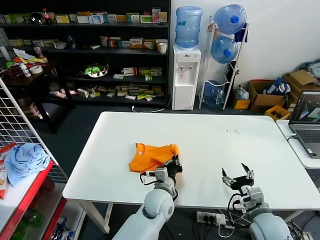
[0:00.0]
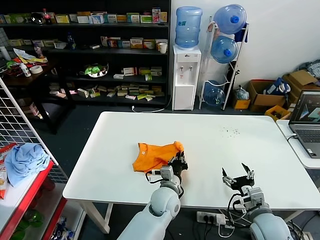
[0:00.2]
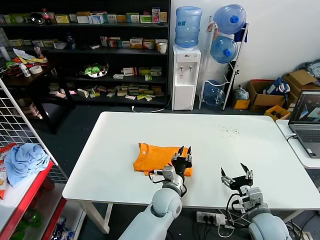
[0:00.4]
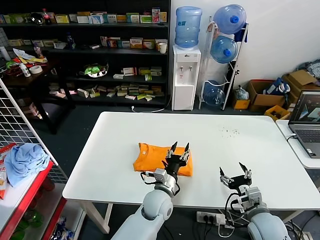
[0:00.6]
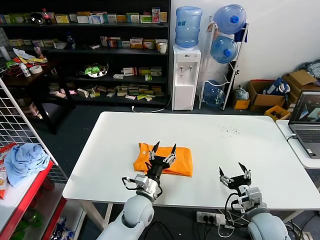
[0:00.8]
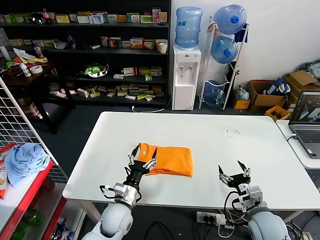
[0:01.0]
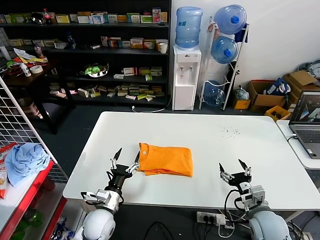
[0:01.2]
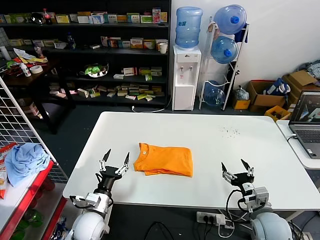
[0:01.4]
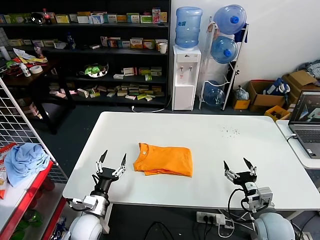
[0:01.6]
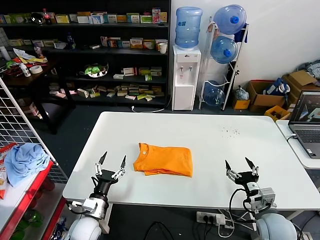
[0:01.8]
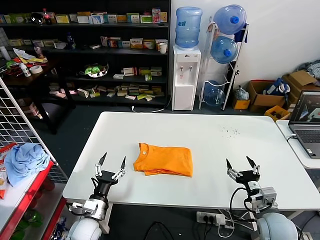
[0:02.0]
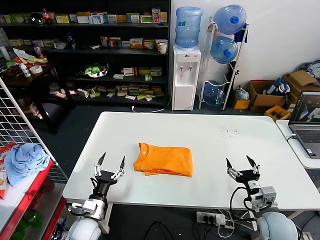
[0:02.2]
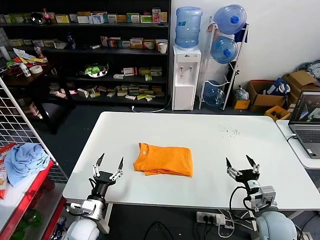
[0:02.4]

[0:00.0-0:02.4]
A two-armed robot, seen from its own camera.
Task of the whole recording: fold and organize the clothes.
0:00.0 to 0:01.2: The left gripper travels to the left by roughly 15 cm, and opens its fingers.
0:01.2 to 0:02.4: The left gripper heads to the left, covering about 10 cm.

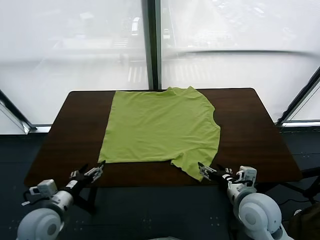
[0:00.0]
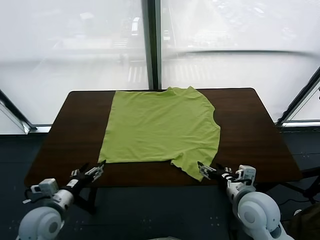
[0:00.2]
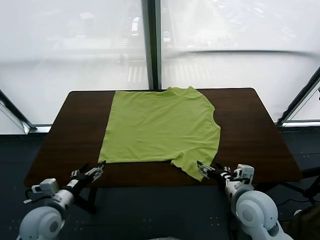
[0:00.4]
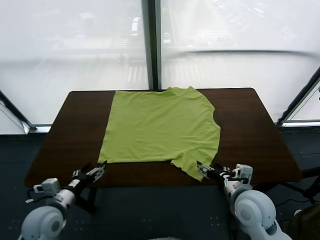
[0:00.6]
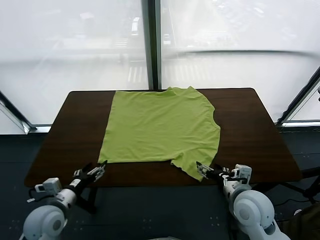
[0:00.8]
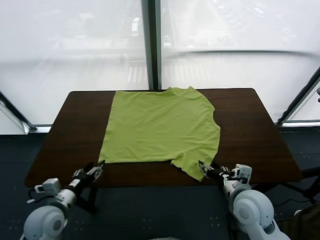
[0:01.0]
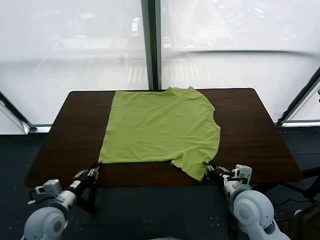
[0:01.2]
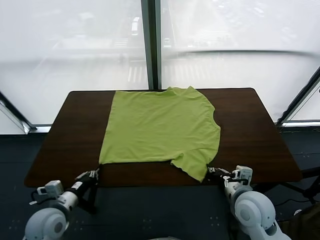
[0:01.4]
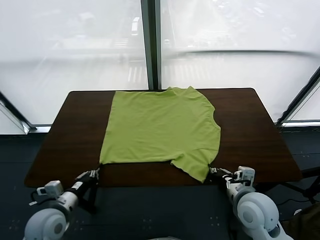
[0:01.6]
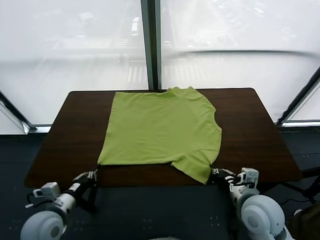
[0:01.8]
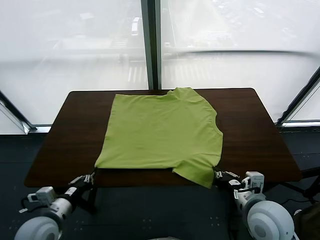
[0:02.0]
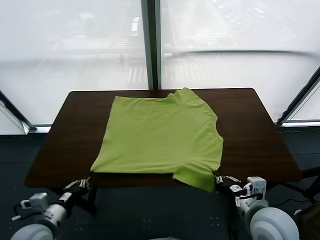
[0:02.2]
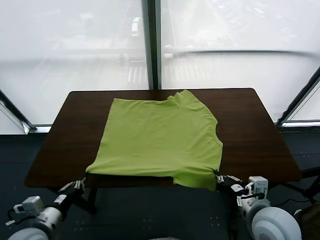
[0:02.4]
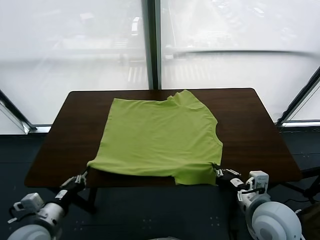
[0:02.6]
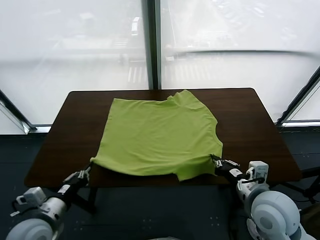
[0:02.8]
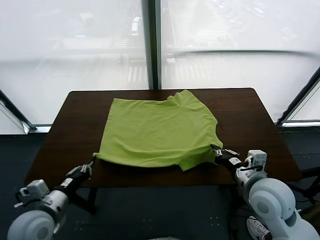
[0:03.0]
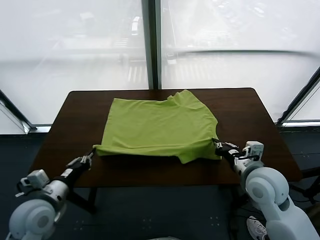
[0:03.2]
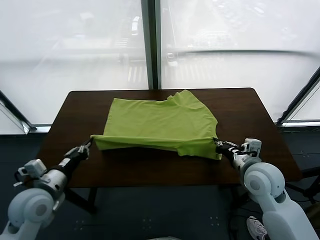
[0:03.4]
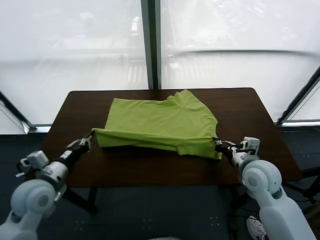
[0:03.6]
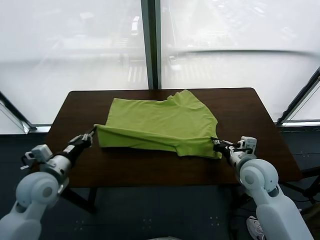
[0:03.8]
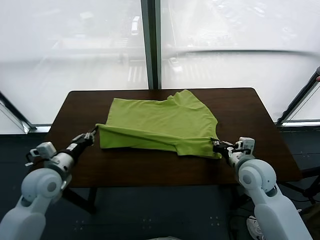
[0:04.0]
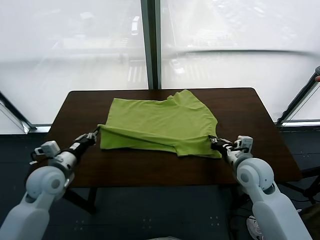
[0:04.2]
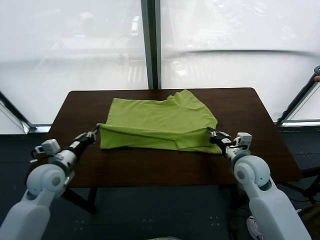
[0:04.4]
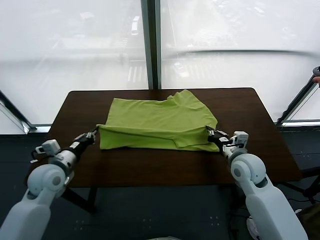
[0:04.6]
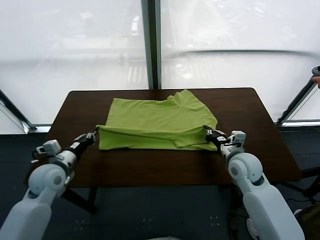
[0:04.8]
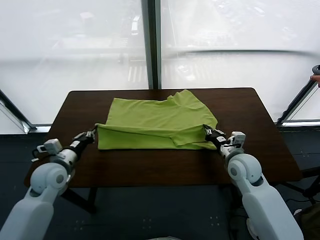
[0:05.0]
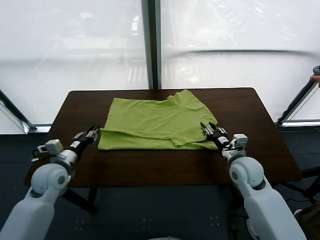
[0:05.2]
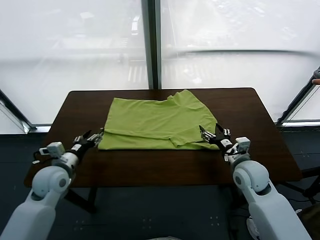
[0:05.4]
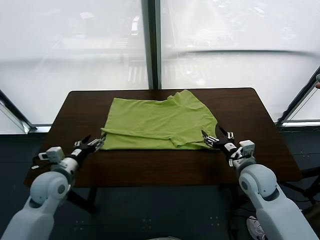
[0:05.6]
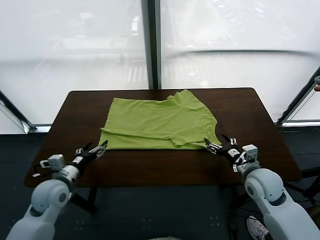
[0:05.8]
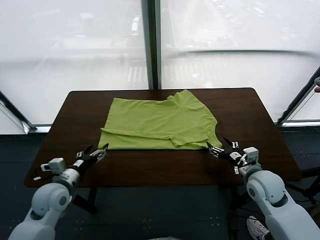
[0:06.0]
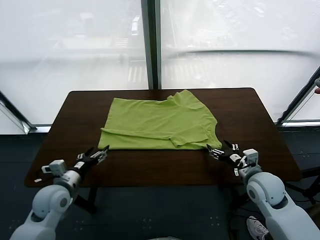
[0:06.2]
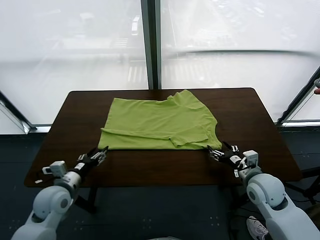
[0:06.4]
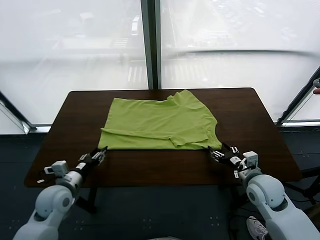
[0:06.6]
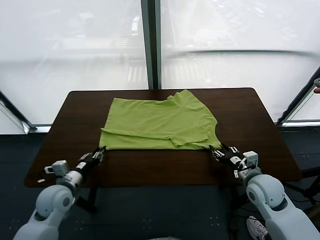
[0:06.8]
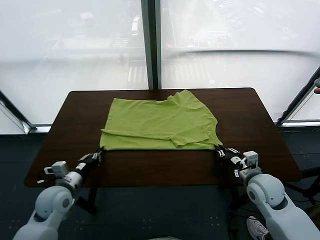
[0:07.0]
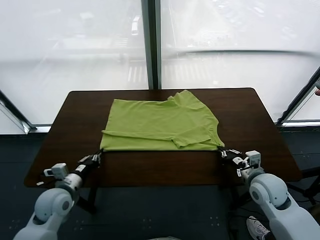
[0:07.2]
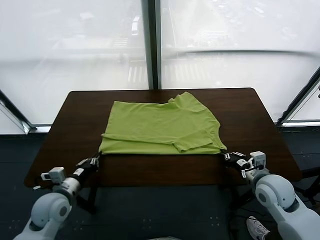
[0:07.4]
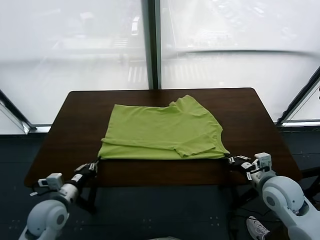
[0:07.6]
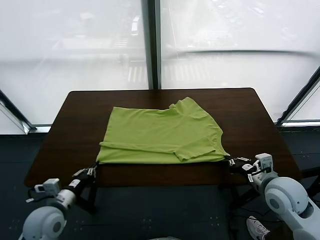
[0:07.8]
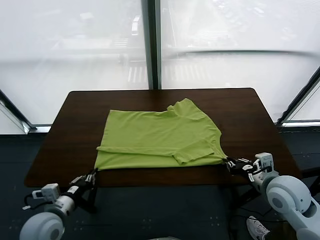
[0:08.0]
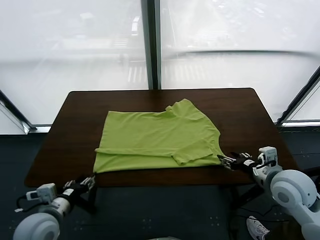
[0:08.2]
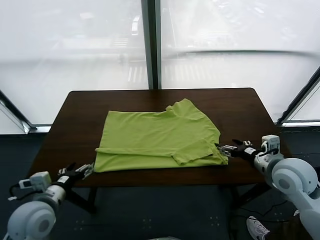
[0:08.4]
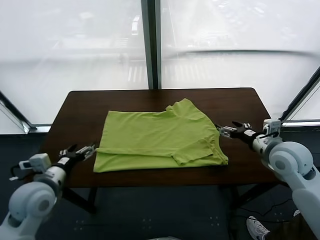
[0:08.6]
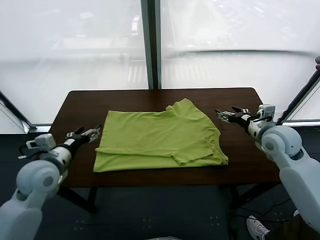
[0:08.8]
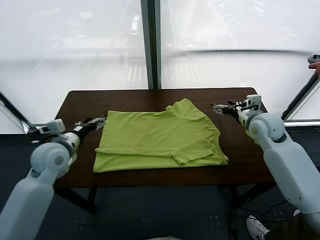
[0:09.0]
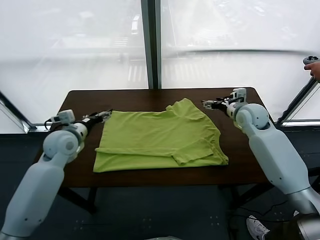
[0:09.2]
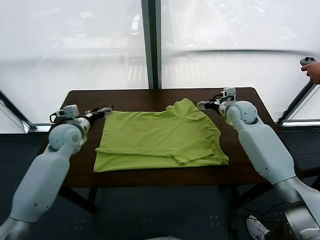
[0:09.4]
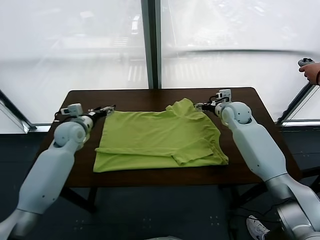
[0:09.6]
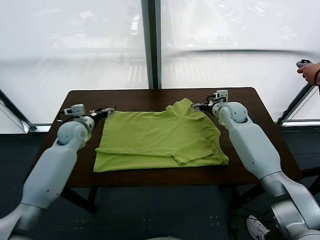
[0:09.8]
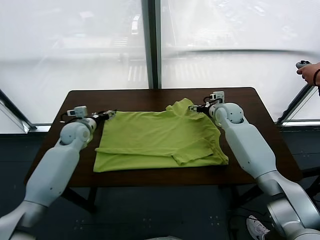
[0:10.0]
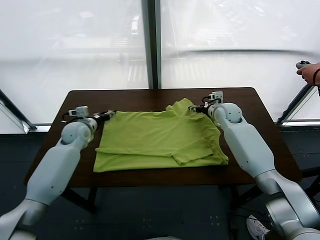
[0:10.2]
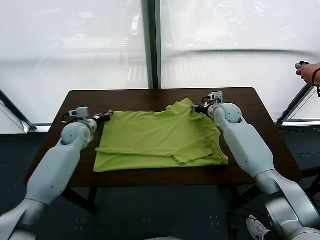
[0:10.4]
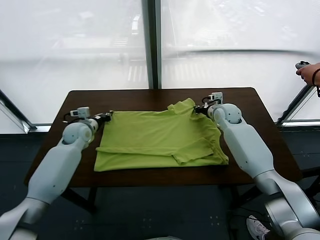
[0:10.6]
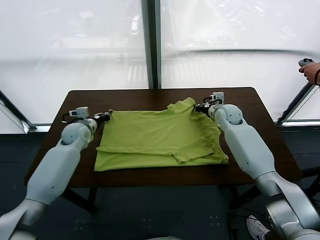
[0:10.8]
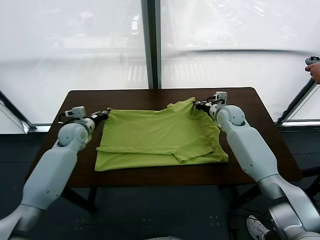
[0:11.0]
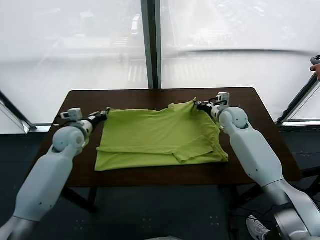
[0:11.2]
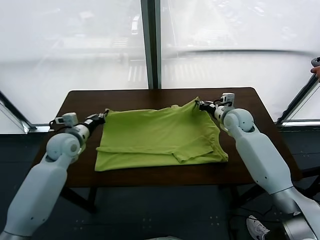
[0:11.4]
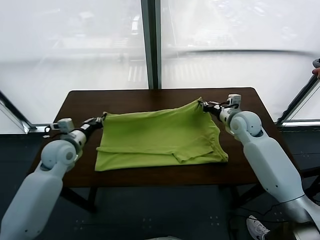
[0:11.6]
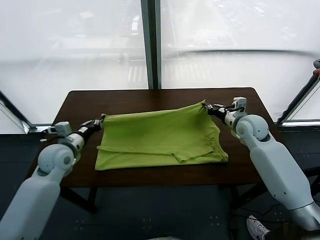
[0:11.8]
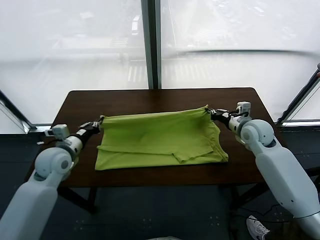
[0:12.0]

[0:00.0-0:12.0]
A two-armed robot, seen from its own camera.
Task of the whole recording: fold and organize the clothes.
Step, 0:00.0 to 0:01.4: use both grippers simultaneously to clamp the lower edge of the clothing fabric.
Step, 0:01.6 to 0:05.2: use both grippers to drag the lower edge of the fabric forward and fold it over the upper edge.
Step, 0:05.6 to 0:08.0: Drag the clothes downward with both gripper.
Step, 0:08.4 to 0:10.6: use both grippers simultaneously to clamp the upper edge of the clothing fabric.
0:01.6 to 0:03.0: The right gripper heads forward, covering about 10 cm.
0:03.0 to 0:04.4: The right gripper travels downward and forward by roughly 10 cm. The left gripper goes approximately 10 cm forward.
0:04.4 to 0:06.0: Both grippers travel together backward, some 5 cm. The left gripper opens its fingers, while the right gripper opens.
0:06.0 to 0:07.6: The left gripper shifts roughly 5 cm backward, and closes its fingers. The right gripper heads upward, covering roughly 10 cm, and closes.
0:07.6 to 0:09.0: Both grippers move forward, about 25 cm. The left gripper opens up. The right gripper opens up.
0:09.0 to 0:10.4: The right gripper closes up. Meanwhile the left gripper travels downward and forward by some 10 cm, and closes.
0:10.4 to 0:12.0: Both grippers travel together backward, roughly 15 cm.

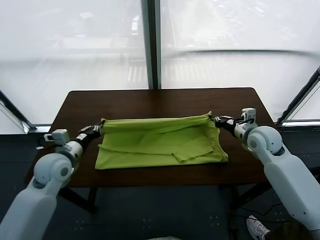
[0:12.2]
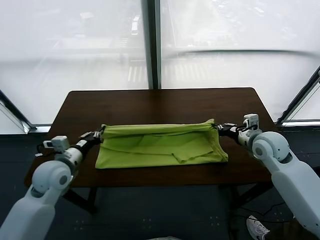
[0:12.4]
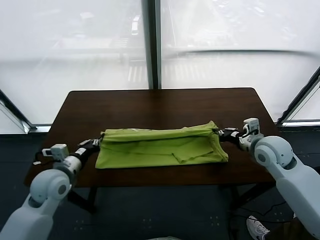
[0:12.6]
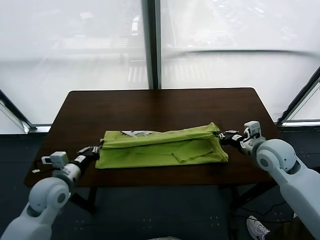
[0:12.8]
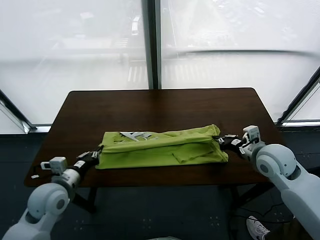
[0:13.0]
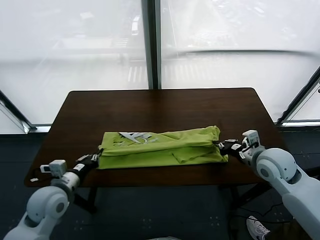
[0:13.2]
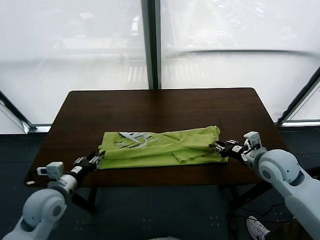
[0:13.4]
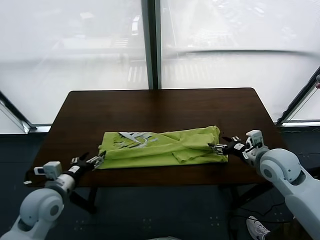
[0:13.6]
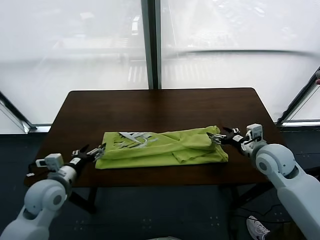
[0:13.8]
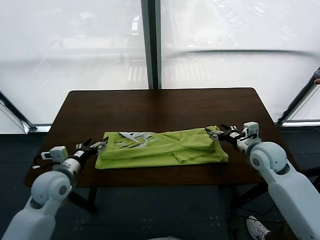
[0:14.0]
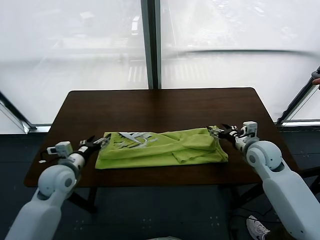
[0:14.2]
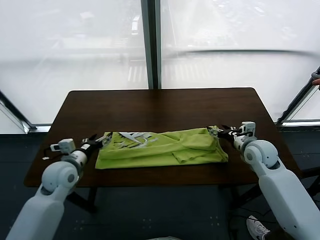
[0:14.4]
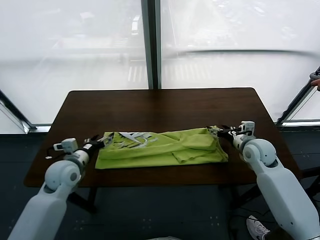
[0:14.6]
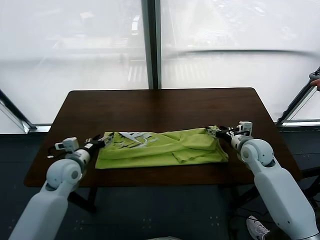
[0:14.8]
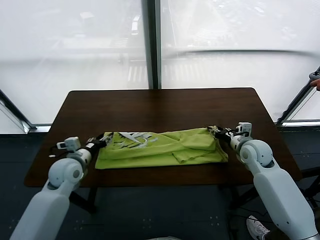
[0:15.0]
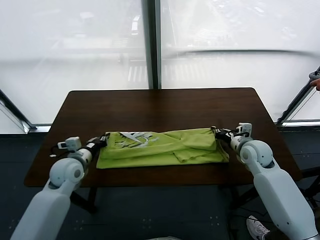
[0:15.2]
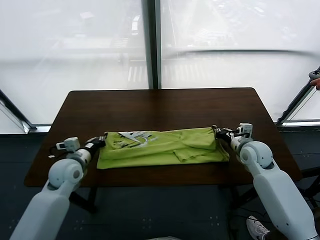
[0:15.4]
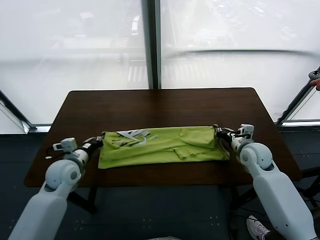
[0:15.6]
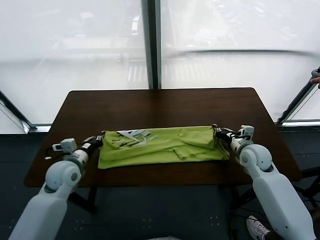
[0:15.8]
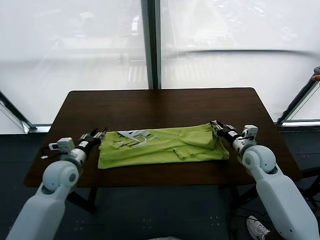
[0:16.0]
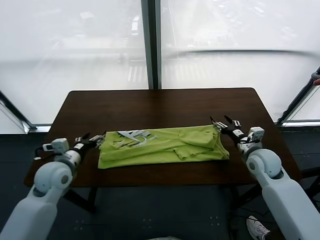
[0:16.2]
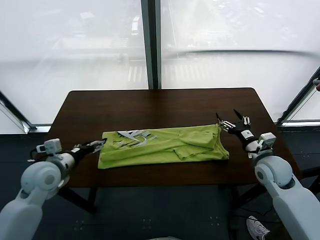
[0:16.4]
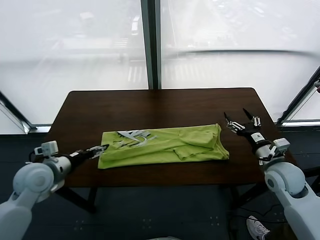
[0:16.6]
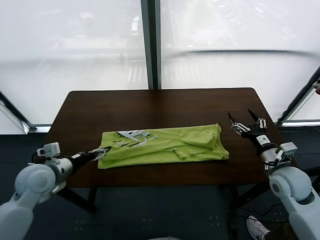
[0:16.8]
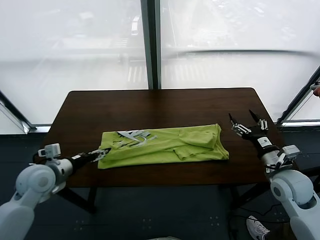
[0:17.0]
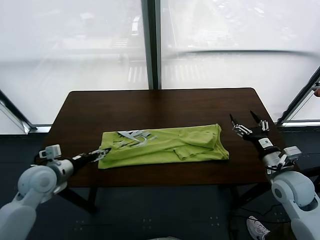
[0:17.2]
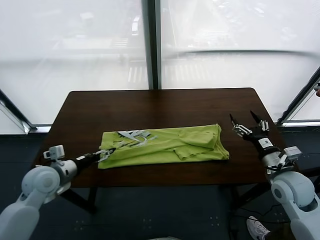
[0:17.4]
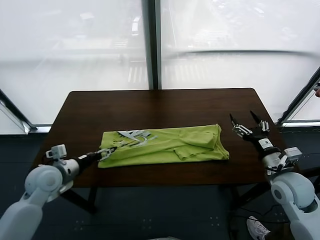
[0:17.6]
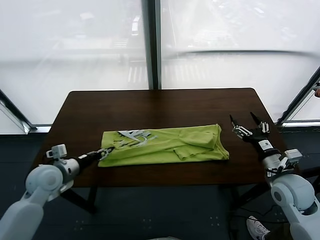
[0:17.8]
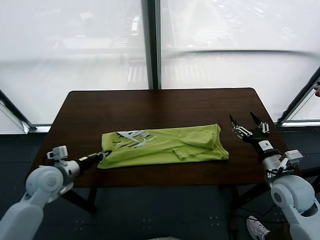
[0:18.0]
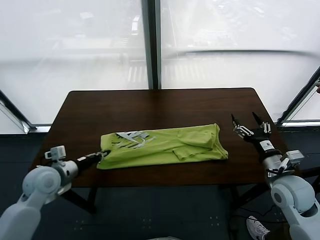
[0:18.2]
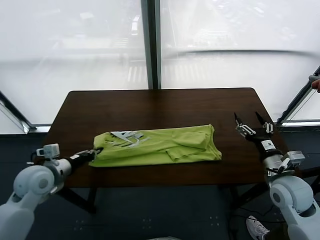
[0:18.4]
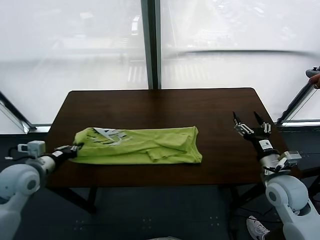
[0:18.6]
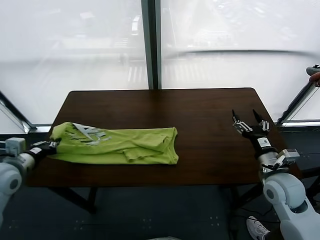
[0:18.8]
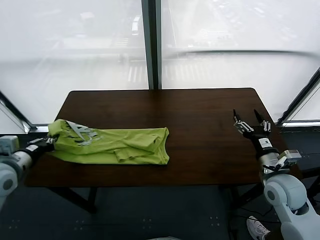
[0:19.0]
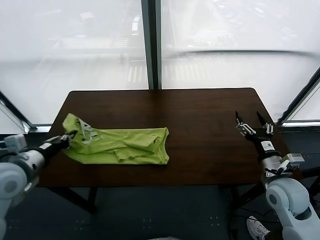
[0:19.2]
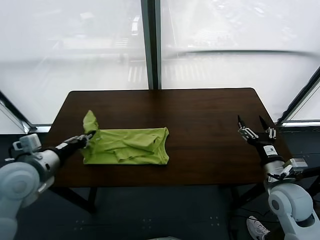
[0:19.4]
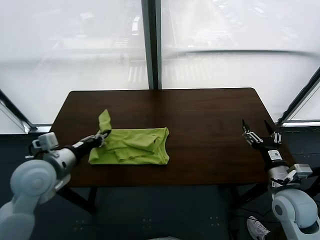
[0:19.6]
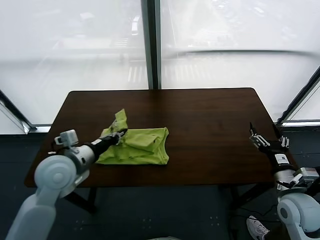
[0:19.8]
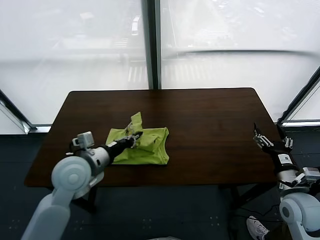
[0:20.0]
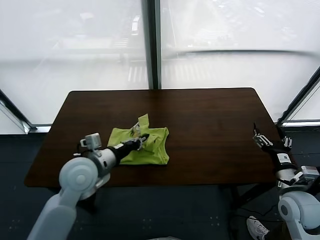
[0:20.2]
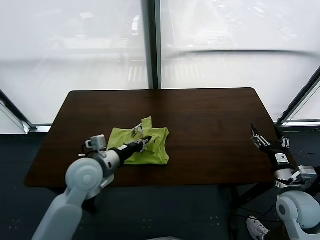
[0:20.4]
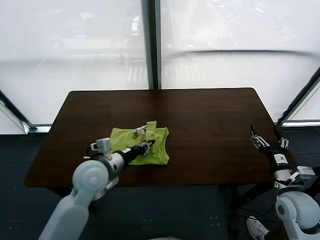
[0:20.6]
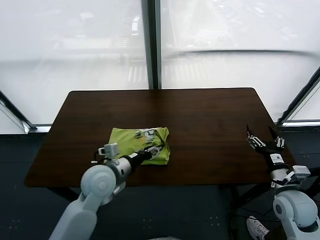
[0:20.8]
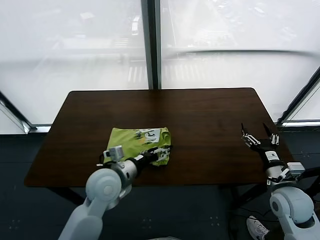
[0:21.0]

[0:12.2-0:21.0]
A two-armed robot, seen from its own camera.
Task of the whole recording: fold and organize the clothes.
Step, 0:13.8 to 0:18.0: use the left gripper to clamp the left edge of the fabric.
Step, 0:18.2 to 0:21.0: use the left gripper to drag the left edge of the fabric to the left and folds it over the right edge.
0:12.2 to 0:13.6: The right gripper opens; the left gripper opens up.
0:13.6 to 0:15.2: The right gripper is displaced downward by roughly 5 cm, and closes up. Meanwhile the left gripper goes about 10 cm forward, and closes.
0:15.2 to 0:16.6: The left gripper travels upward by about 5 cm, and opens its fingers. Meanwhile the right gripper travels backward by approximately 10 cm, and opens up.
0:16.6 to 0:18.0: The left gripper closes its fingers.
0:18.0 to 0:19.6: The left gripper moves upward and to the right, some 10 cm.
0:19.6 to 0:21.0: The left gripper goes approximately 15 cm to the right and downward, and opens its fingers. The right gripper shifts by roughly 5 cm.
